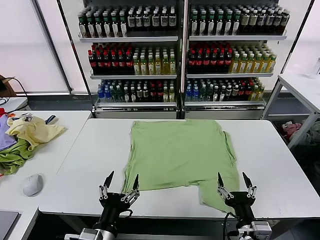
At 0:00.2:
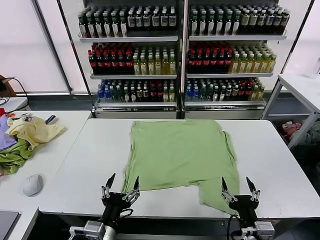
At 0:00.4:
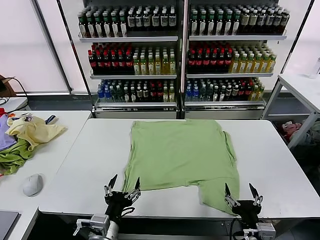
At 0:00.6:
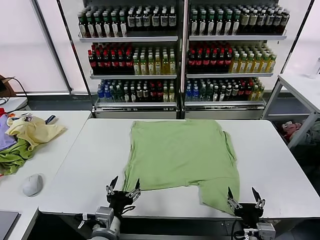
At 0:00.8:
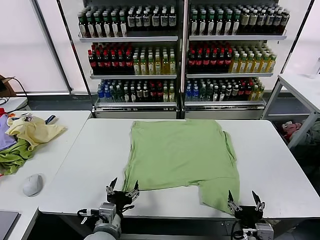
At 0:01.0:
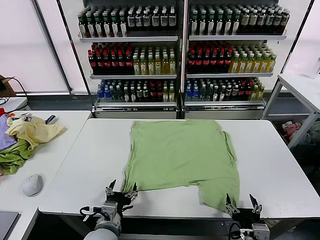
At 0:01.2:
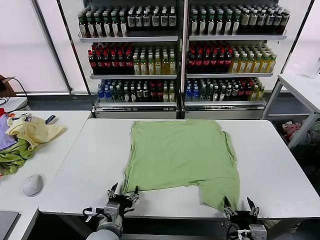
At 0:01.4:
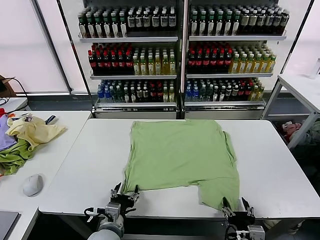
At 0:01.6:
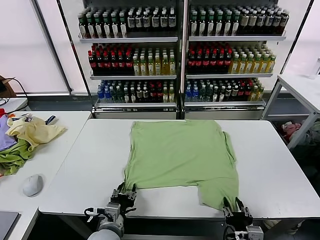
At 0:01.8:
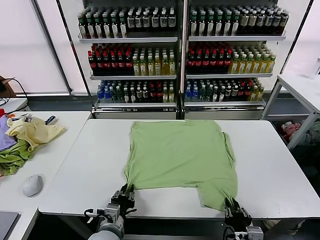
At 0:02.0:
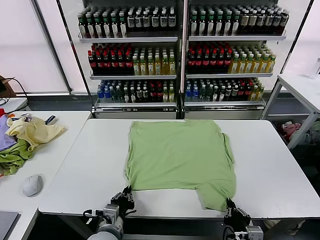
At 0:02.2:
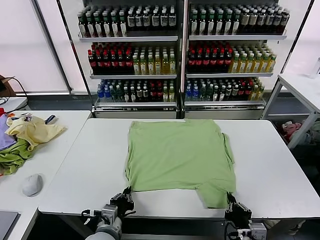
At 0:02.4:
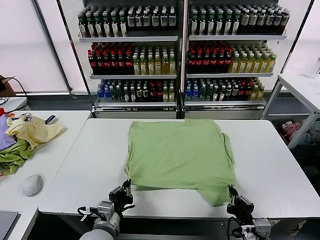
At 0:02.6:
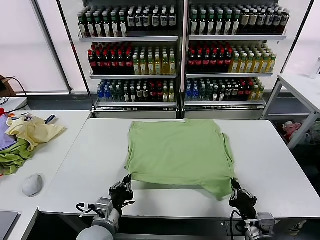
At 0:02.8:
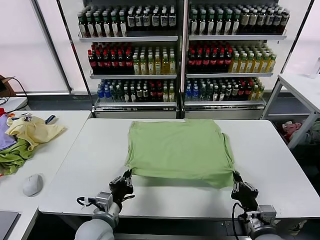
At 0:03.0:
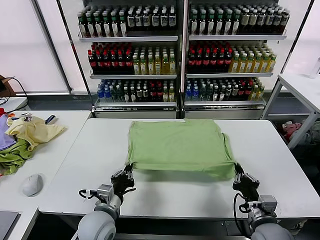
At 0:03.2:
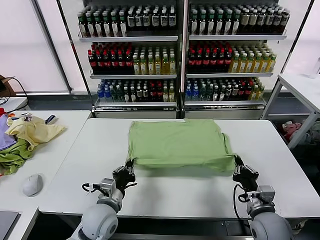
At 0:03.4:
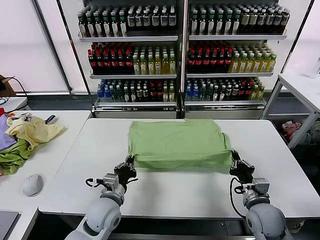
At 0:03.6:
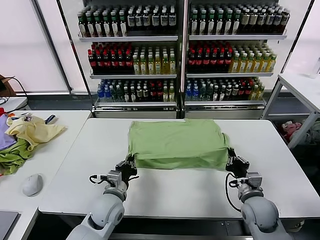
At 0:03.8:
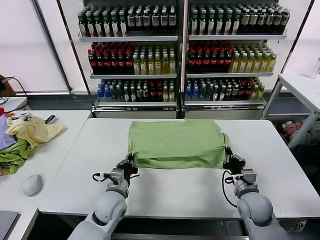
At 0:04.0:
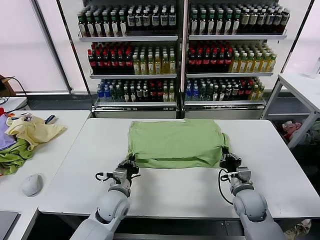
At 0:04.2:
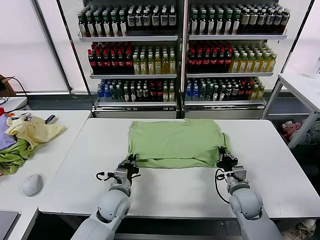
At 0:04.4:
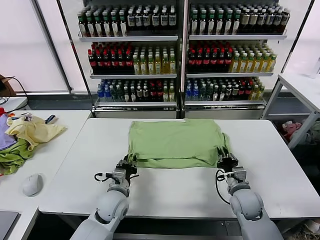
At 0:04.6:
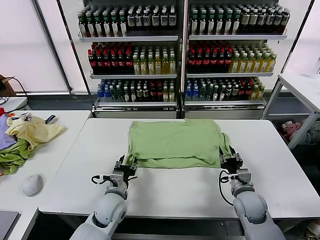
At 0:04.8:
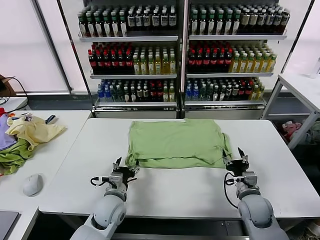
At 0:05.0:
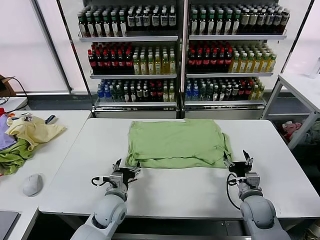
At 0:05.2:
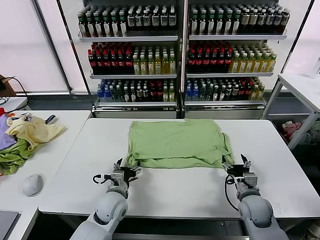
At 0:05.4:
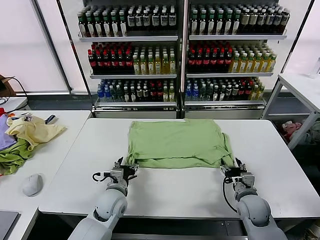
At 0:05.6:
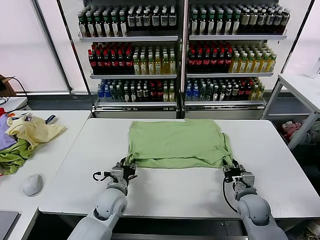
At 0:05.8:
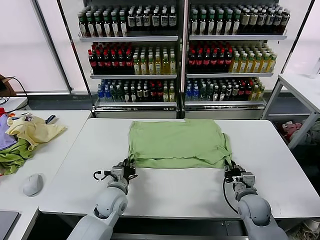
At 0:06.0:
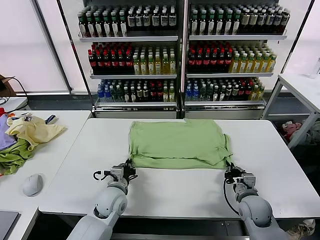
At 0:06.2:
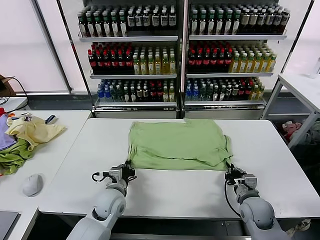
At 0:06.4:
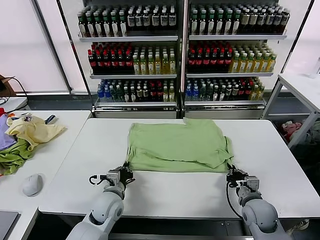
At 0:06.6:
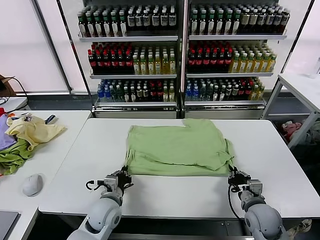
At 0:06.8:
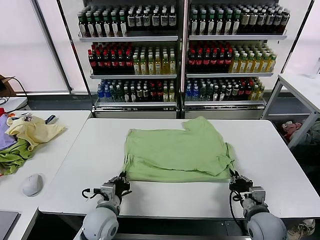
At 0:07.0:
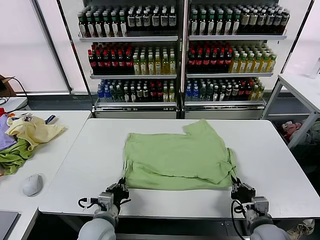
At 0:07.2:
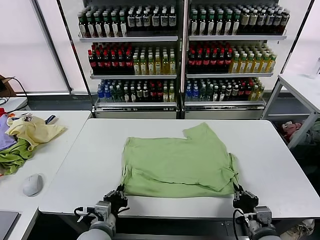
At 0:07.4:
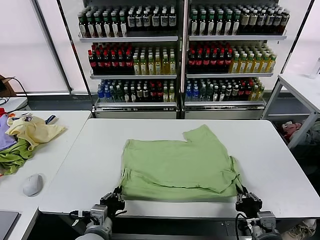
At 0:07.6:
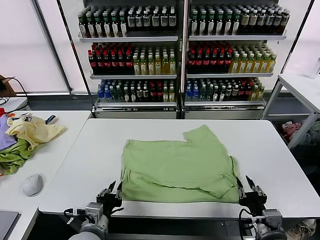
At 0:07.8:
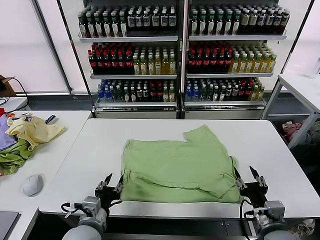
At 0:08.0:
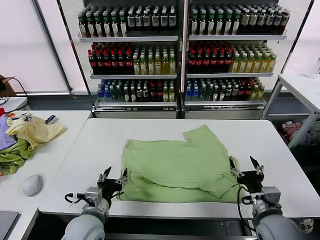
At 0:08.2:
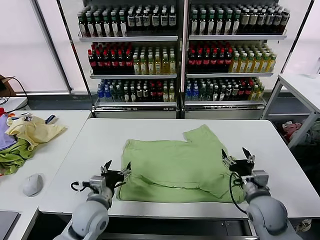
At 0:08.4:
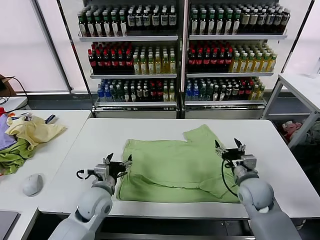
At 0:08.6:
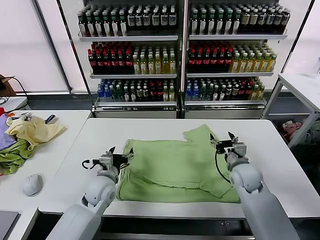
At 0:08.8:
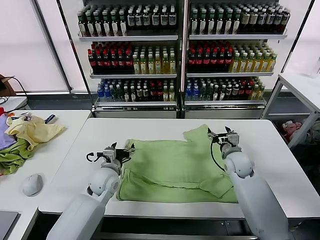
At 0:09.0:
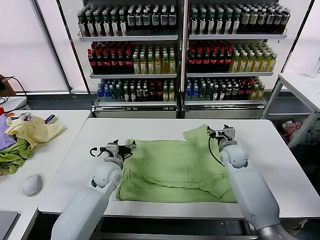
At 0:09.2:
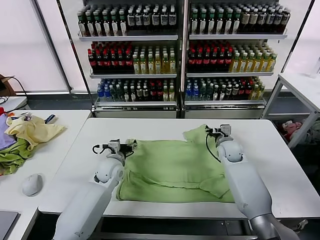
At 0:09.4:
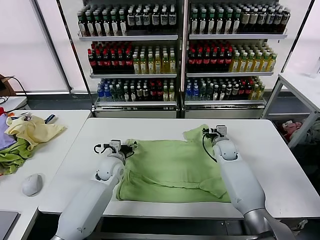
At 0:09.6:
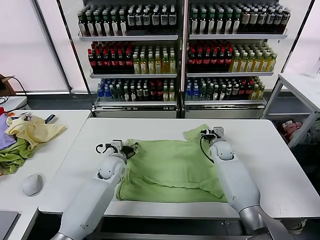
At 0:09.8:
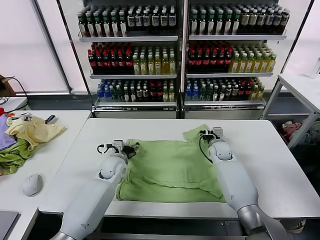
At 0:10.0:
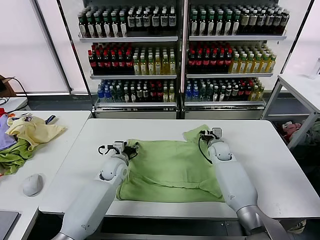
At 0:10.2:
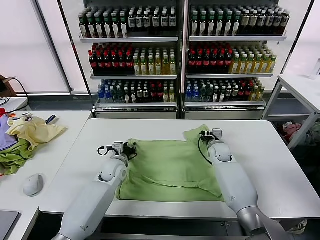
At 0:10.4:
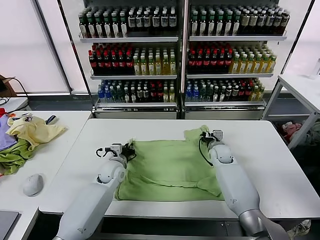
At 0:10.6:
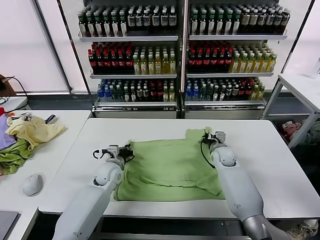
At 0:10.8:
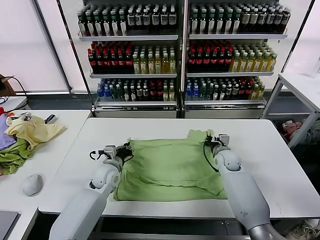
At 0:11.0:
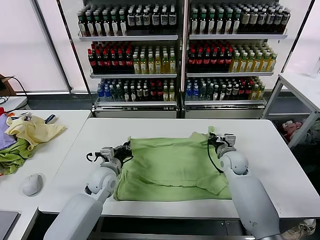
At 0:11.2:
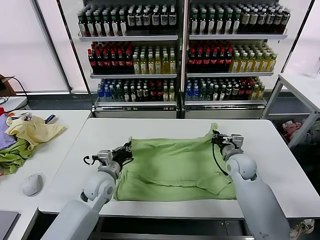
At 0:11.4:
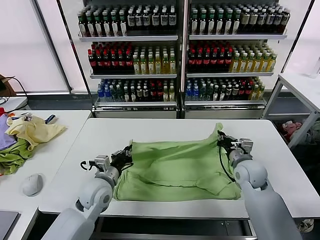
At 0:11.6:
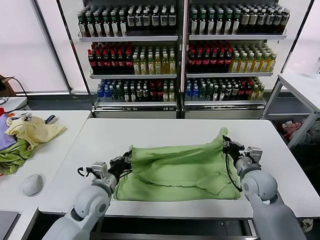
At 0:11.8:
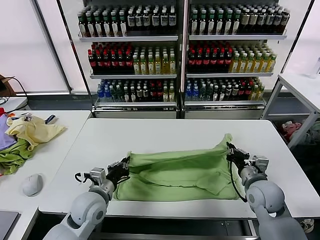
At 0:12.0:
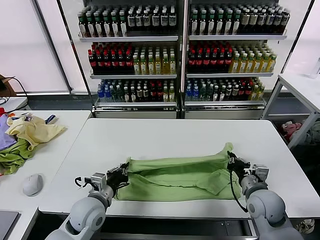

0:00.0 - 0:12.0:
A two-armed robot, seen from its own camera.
Task of the whole recording: fold and organize the clothes.
Step, 0:00.0 - 0:02.0: use both grippers simultaneously to clamp the lower edge of the clothing fabric.
Step, 0:02.2 - 0:04.4: use both grippers to drag the lower edge of the fabric forward and fold it over the upper edge.
Step, 0:04.6 - 0:07.6: Drag the clothes downward with both gripper.
Step, 0:07.8 - 0:10.6: use both grippers simultaneously to clamp the upper edge of the clothing fabric.
0:01.6 - 0:03.0: The right gripper goes some 10 cm forward, and closes. Meanwhile the left gripper ends up approximately 5 cm from where it was, and closes.
0:03.0 - 0:04.4: Both grippers travel together forward, some 10 cm. The right gripper opens, while the left gripper opens its fingers.
0:04.4 - 0:06.0: The left gripper closes; the right gripper closes up.
0:06.0 - 0:07.6: The right gripper goes roughly 15 cm backward and upward, and opens. The left gripper heads backward, covering about 15 cm.
0:07.6 - 0:09.0: The grippers both shift forward by some 30 cm. The left gripper opens, while the right gripper opens.
0:09.0 - 0:10.4: The left gripper closes up, while the right gripper moves downward, about 5 cm, and closes up.
0:10.4 - 0:12.0: The two grippers go roughly 20 cm backward.

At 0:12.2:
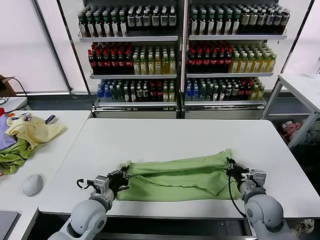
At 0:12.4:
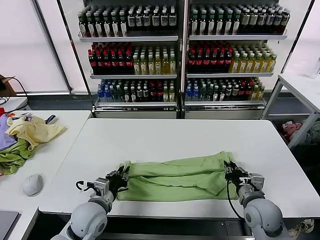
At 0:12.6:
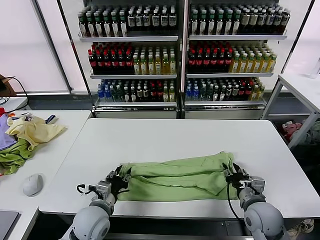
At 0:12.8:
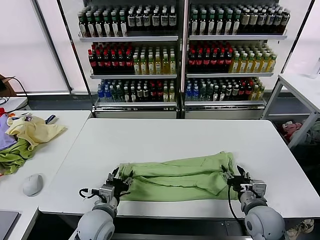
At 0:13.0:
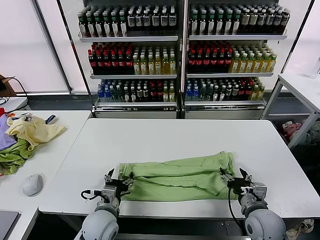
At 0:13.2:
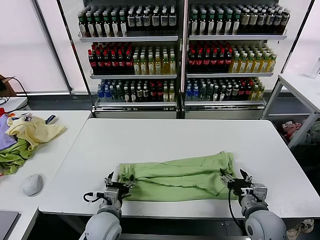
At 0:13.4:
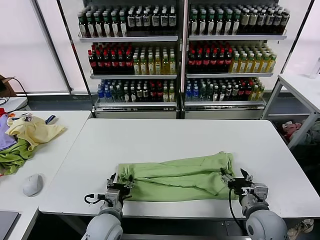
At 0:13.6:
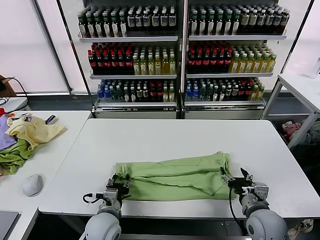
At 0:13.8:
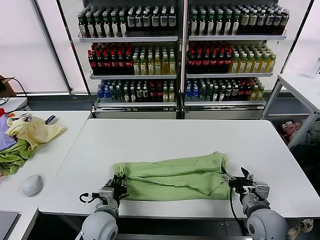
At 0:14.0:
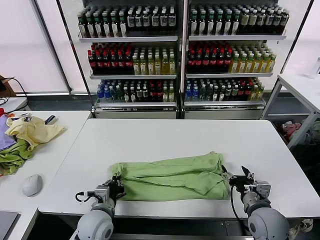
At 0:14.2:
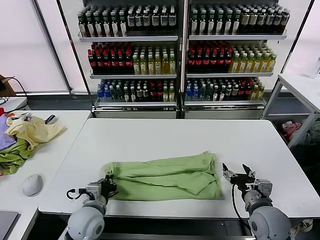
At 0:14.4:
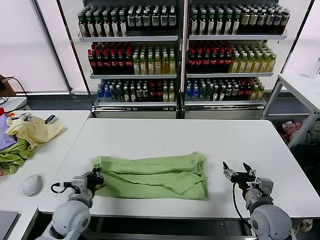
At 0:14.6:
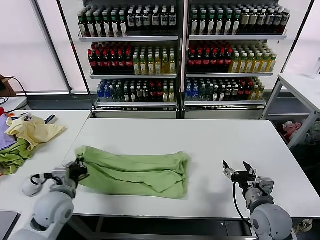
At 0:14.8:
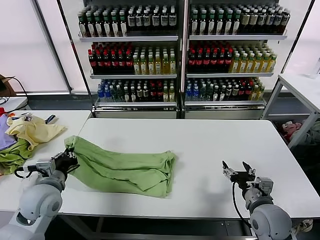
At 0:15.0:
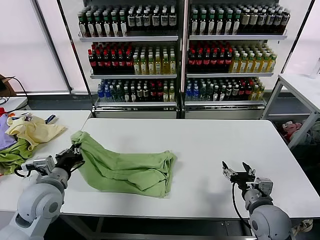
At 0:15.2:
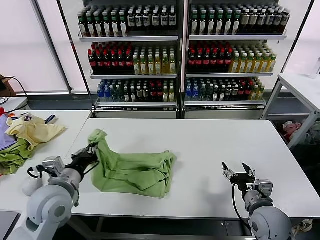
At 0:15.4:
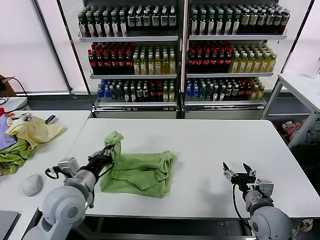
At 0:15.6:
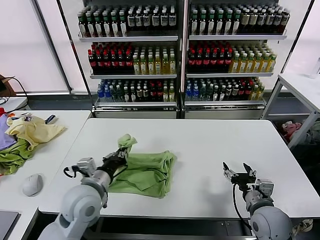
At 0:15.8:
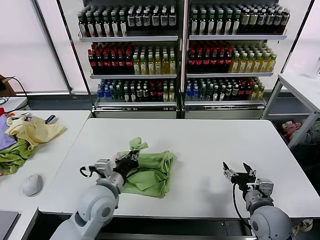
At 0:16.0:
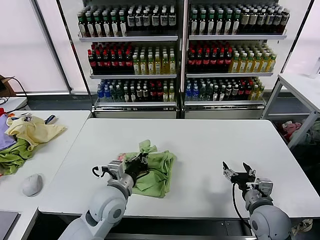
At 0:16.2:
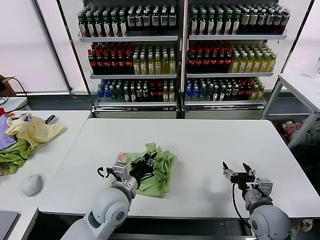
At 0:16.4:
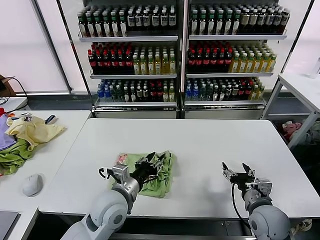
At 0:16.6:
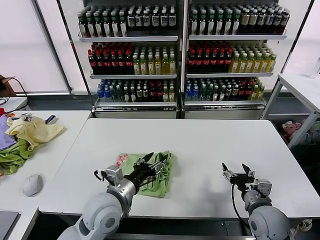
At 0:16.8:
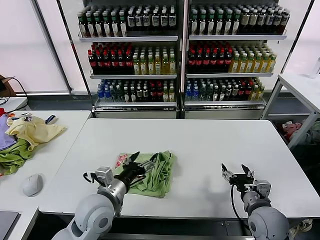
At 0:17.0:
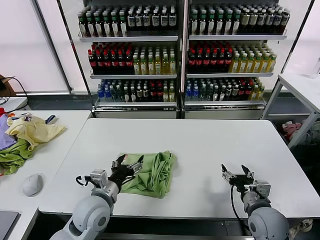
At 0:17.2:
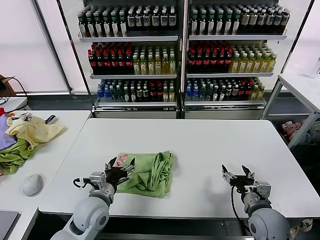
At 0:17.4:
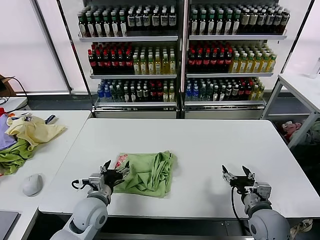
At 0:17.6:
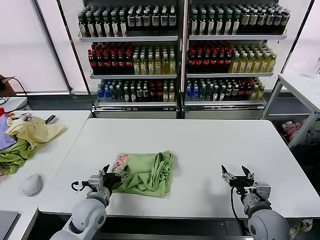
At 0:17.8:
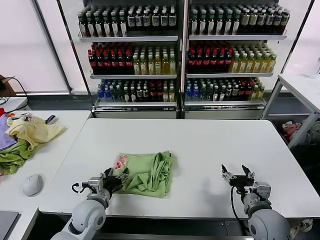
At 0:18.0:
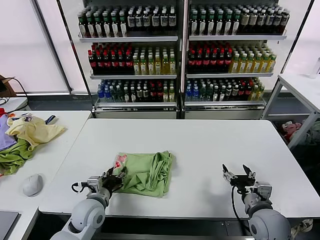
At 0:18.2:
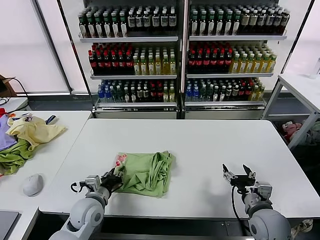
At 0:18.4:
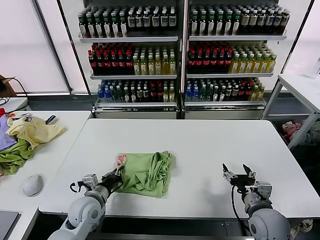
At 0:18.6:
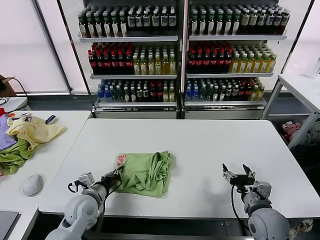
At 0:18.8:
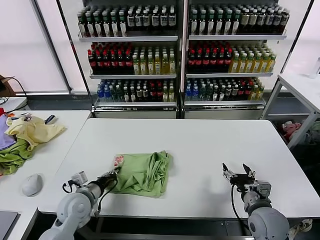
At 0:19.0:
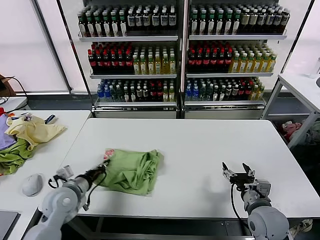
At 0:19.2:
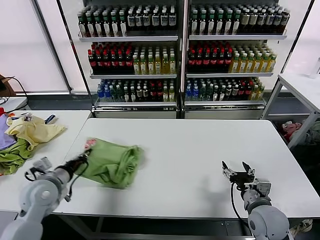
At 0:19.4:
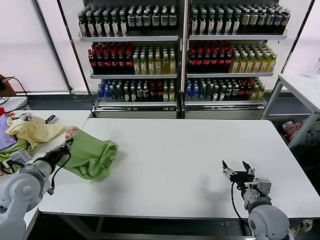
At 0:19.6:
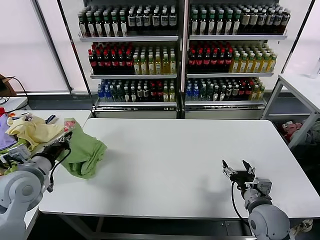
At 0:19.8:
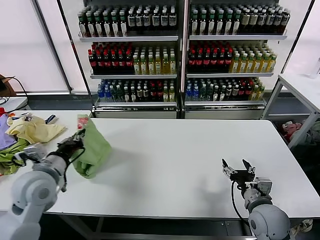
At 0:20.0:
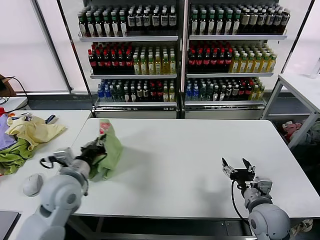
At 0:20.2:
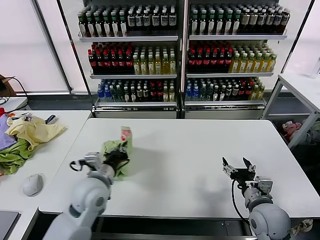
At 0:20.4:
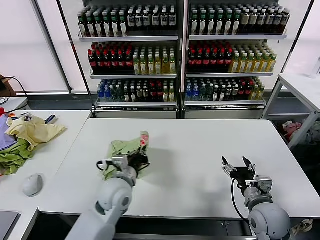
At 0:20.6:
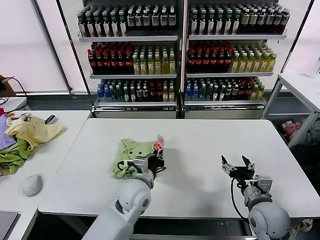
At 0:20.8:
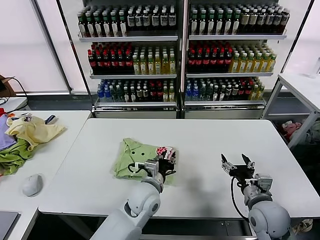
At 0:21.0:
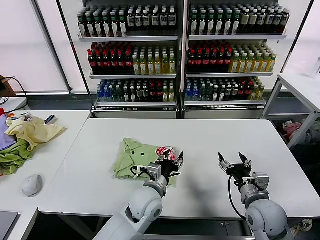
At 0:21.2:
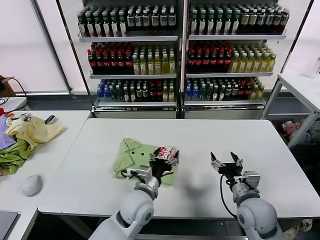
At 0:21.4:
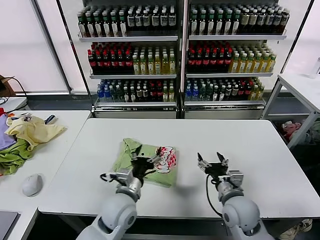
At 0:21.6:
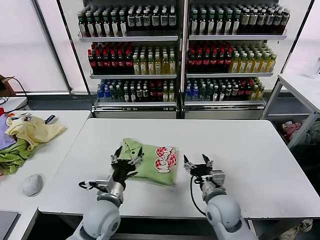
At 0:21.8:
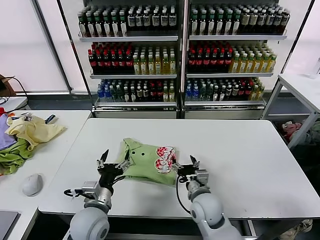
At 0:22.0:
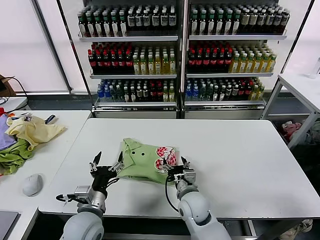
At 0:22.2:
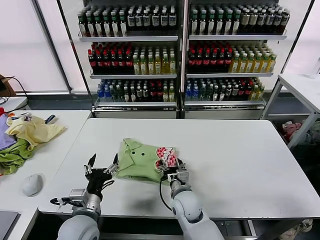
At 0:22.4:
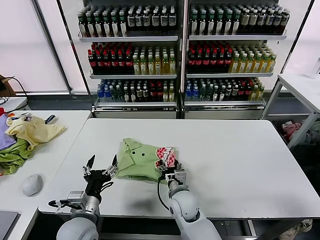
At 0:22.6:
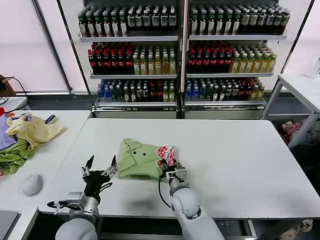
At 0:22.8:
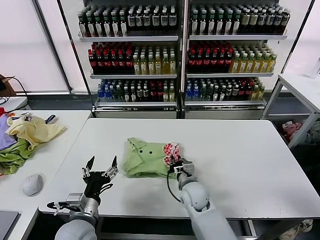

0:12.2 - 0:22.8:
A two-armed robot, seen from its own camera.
Task of the whole recording: fold and organize the clothes.
Step, 0:12.8 - 0:14.0: use the left gripper to clamp the left edge of the fabric.
Step, 0:14.2 - 0:16.4: use the left gripper to drag the left edge of the fabric to the left and folds it over the right edge.
Step, 0:16.6 - 0:20.8: Flip the folded clothes over with left gripper.
0:12.2 - 0:13.8: The left gripper changes place by approximately 5 cm, and opens, then closes again; the right gripper opens its fingers.
0:13.8 - 0:15.2: The left gripper travels upward and to the left by roughly 15 cm.
0:15.2 - 0:16.8: The left gripper heads to the right, covering about 10 cm, and opens.
0:16.8 - 0:18.2: The left gripper travels downward and to the left by approximately 10 cm, and closes.
0:18.2 - 0:19.8: The left gripper is displaced upward and to the left by roughly 20 cm, and closes up.
0:19.8 - 0:21.2: The left gripper heads to the right and downward, covering about 30 cm, and opens up.
0:21.2 - 0:22.8: The left gripper heads to the left and backward, covering roughly 20 cm; the right gripper shifts approximately 20 cm to the left, forward and downward, and closes up.
